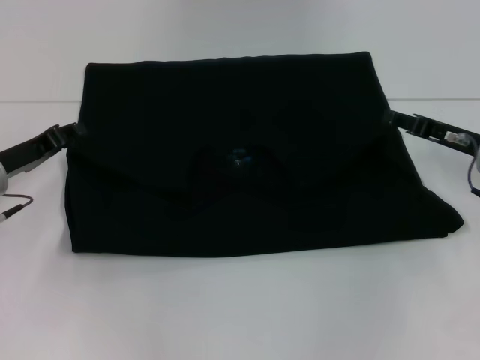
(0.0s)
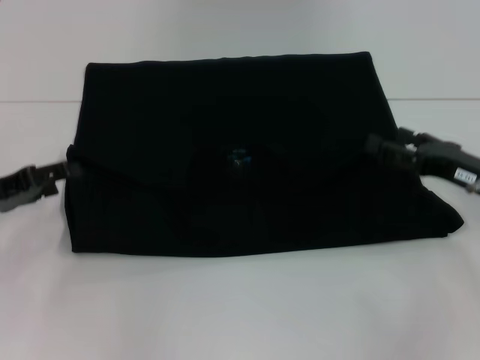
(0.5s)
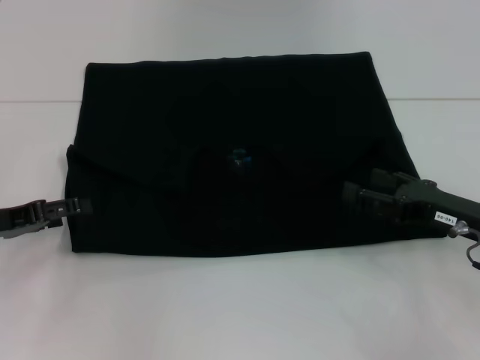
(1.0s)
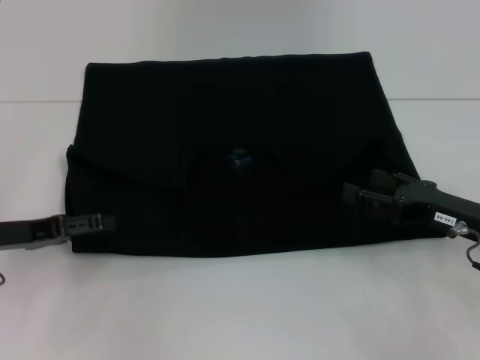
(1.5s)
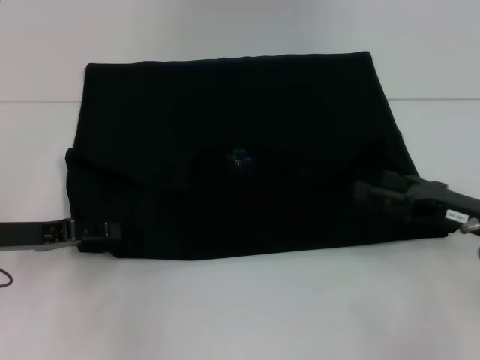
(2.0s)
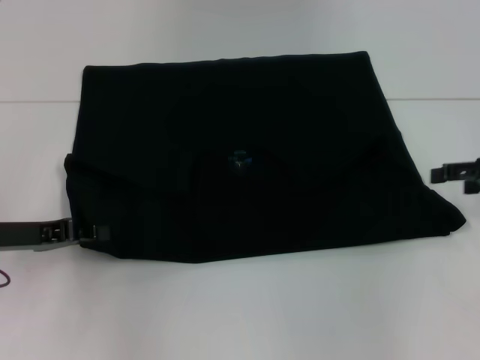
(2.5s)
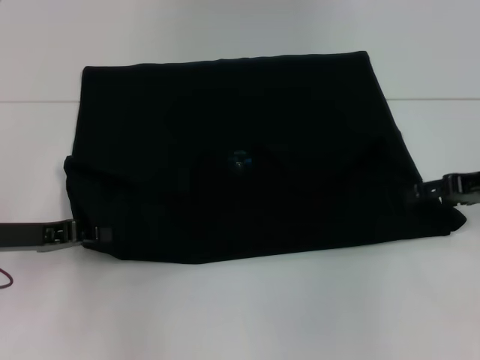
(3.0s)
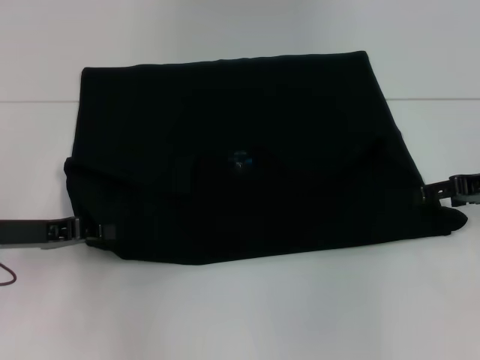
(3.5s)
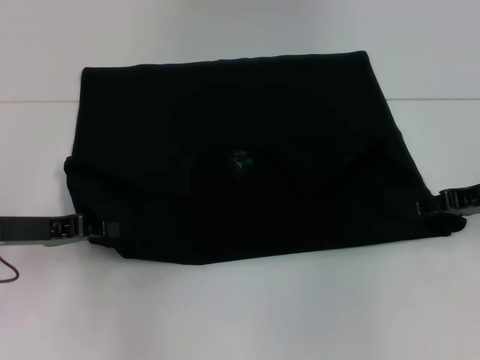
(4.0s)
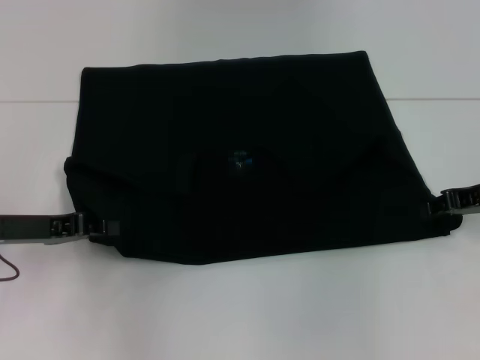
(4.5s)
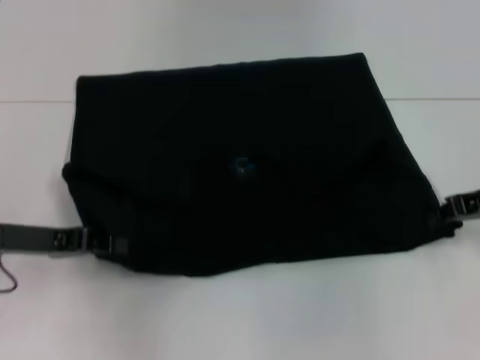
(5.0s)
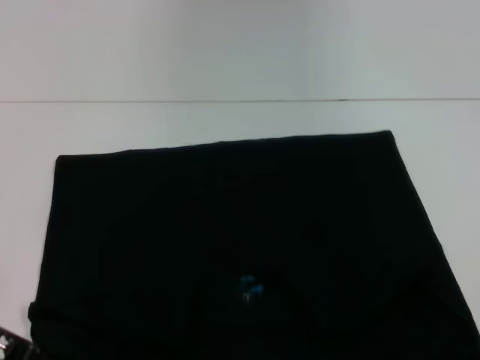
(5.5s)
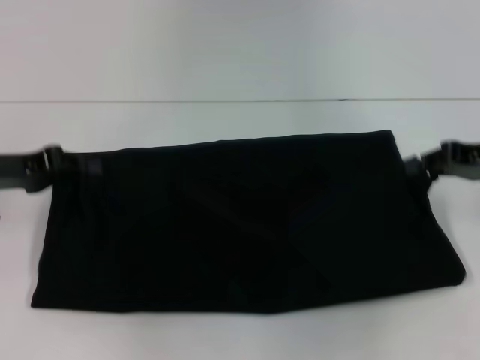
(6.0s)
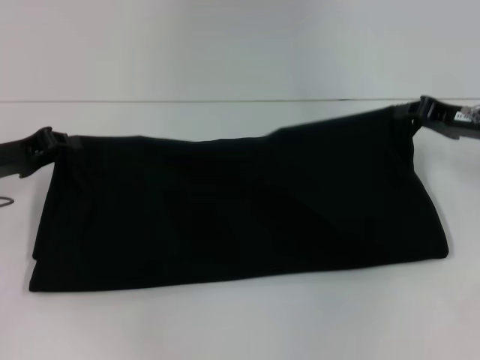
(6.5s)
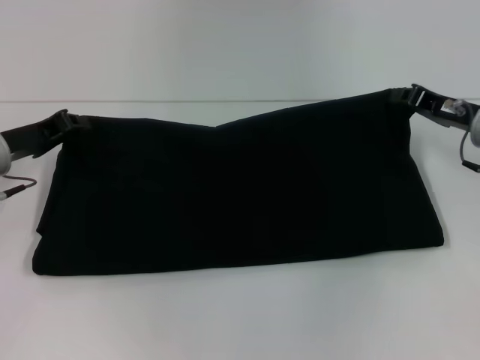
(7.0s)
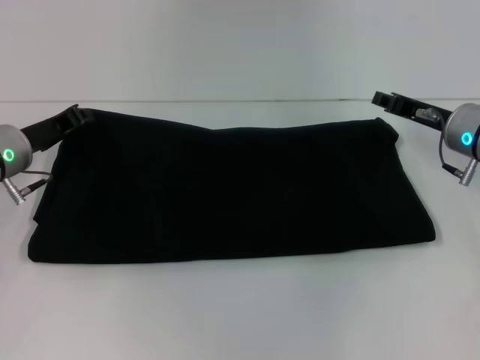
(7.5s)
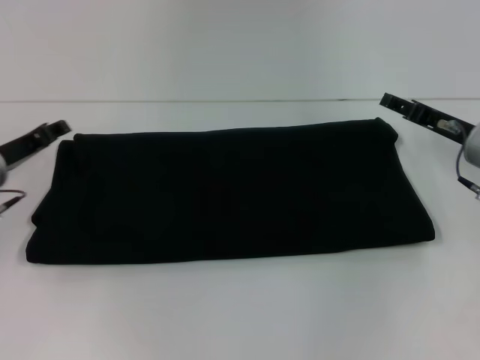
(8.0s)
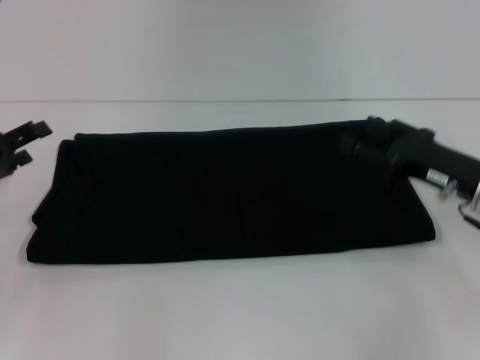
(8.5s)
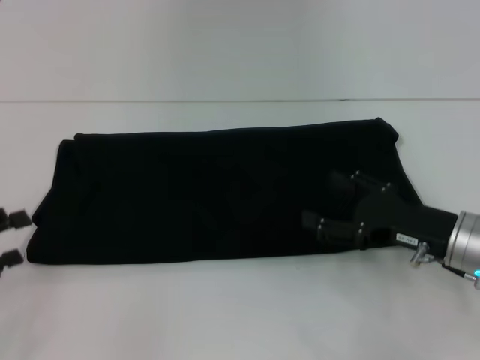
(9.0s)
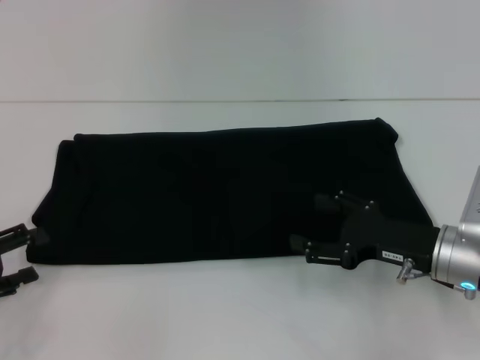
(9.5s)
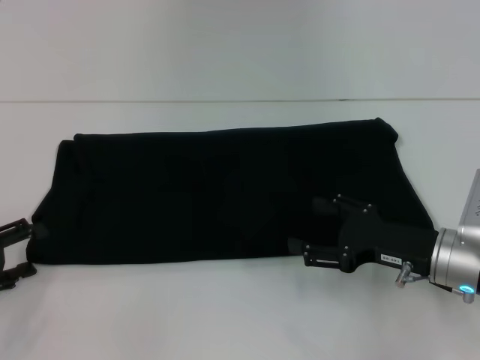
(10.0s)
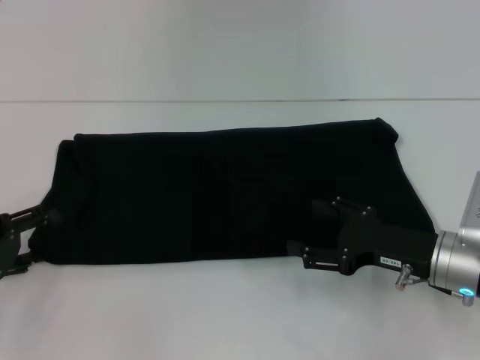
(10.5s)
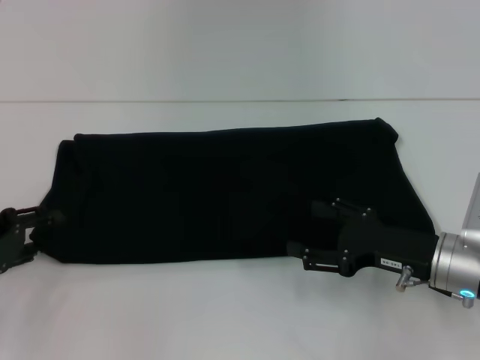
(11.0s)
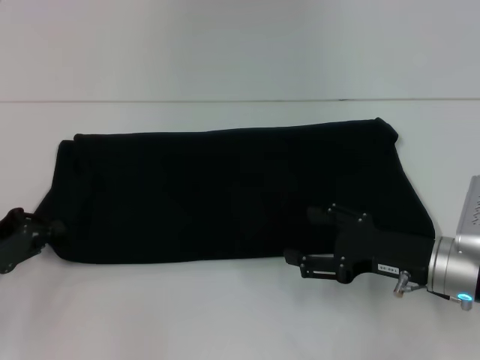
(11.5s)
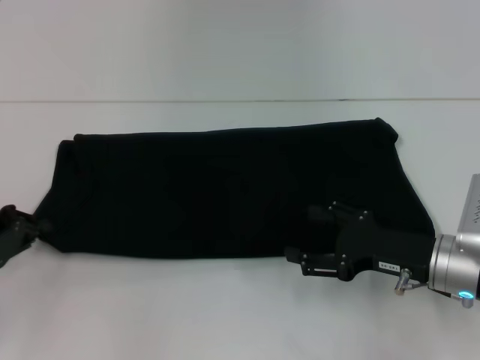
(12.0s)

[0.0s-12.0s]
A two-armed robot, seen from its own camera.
Step, 0.5s to 5.0s: Pull the clothes with your left hand.
Step, 0.5s to 5.0s: Pull the clothes with your right hand.
Step, 5.5s to 7.5s: Fold the clothes with your right hand.
0.0s to 2.0s: The left gripper moves approximately 5 cm, and opens. The right gripper shifts roughly 10 cm backward, and opens up.
2.0s to 4.0s: The left gripper closes. Meanwhile the right gripper is displaced forward by approximately 5 cm.
4.0s to 6.0s: The left gripper reaches approximately 5 cm backward, then returns. The right gripper moves approximately 10 cm backward and comes back, and closes its fingers.
6.0s to 8.0s: Both grippers move downward, about 5 cm. The left gripper opens. The right gripper opens.
8.0s to 10.0s: The right gripper shifts about 10 cm backward. Meanwhile the left gripper travels backward and to the left by about 15 cm, and opens up.
10.0s to 12.0s: The left gripper closes.

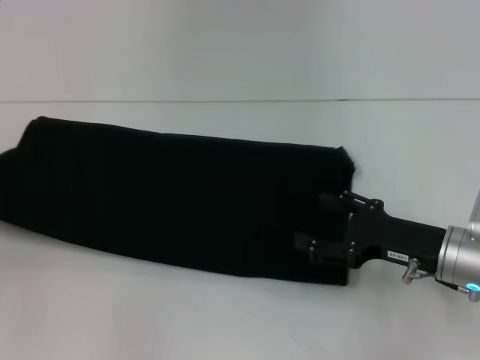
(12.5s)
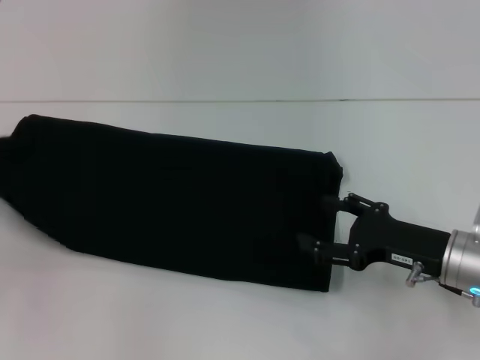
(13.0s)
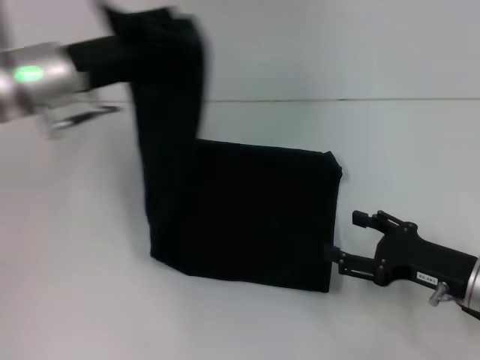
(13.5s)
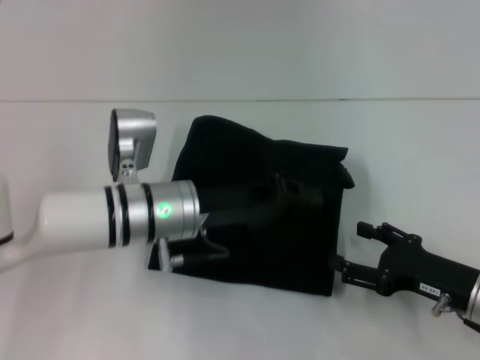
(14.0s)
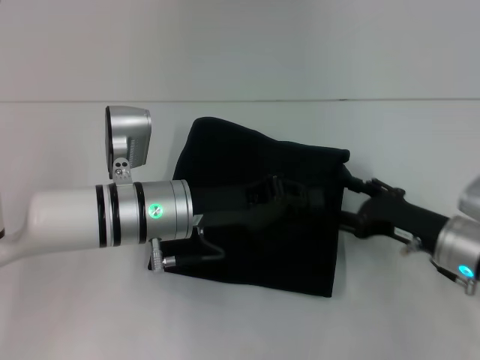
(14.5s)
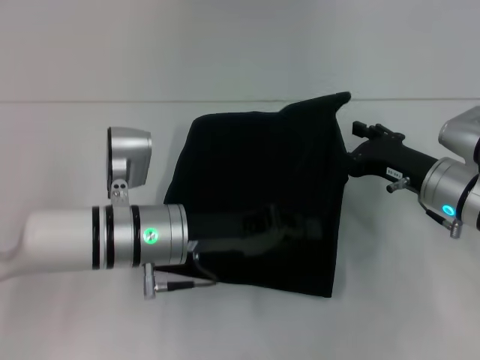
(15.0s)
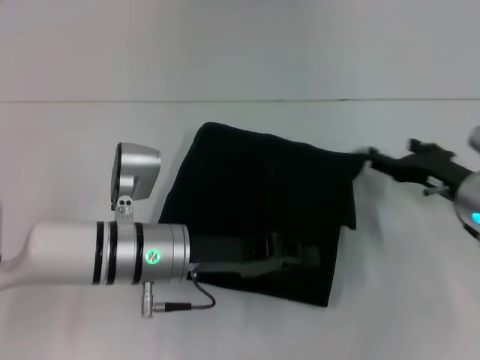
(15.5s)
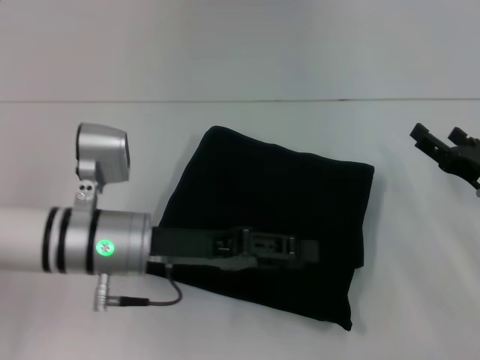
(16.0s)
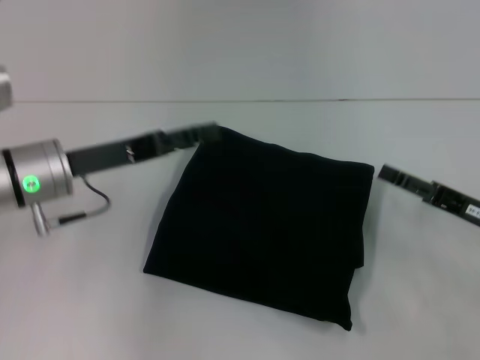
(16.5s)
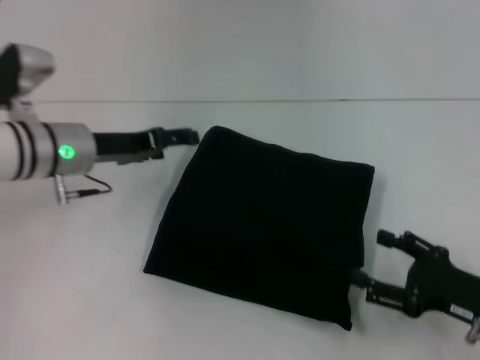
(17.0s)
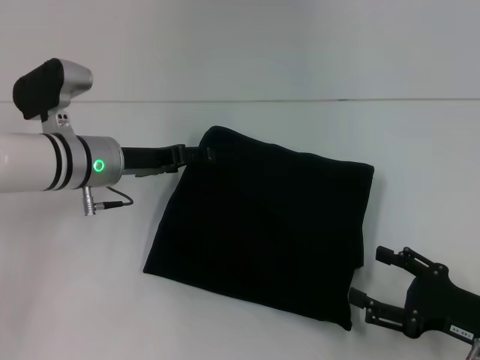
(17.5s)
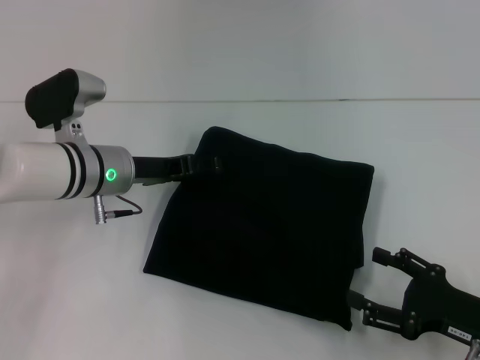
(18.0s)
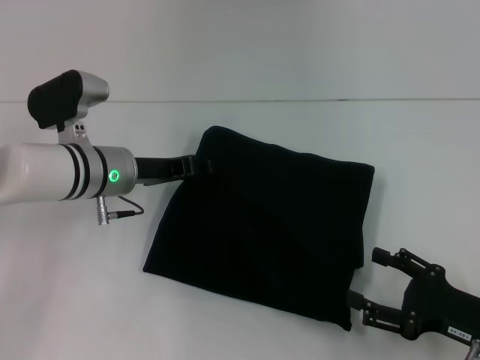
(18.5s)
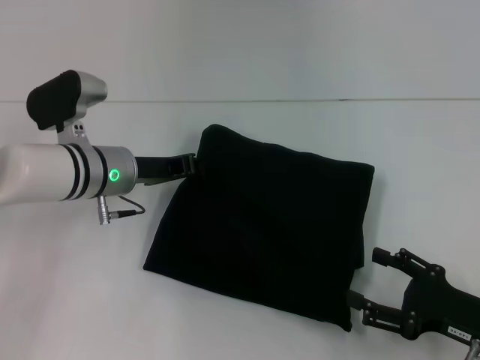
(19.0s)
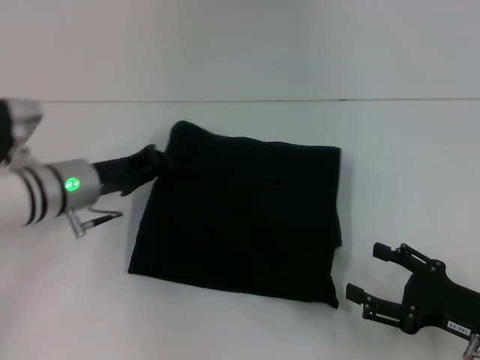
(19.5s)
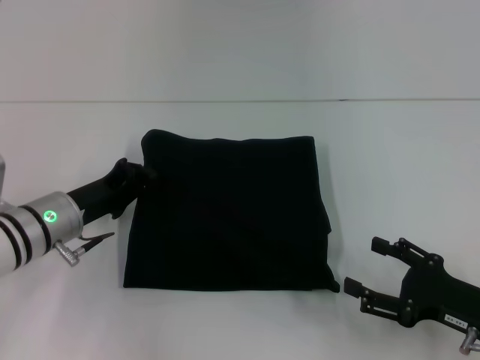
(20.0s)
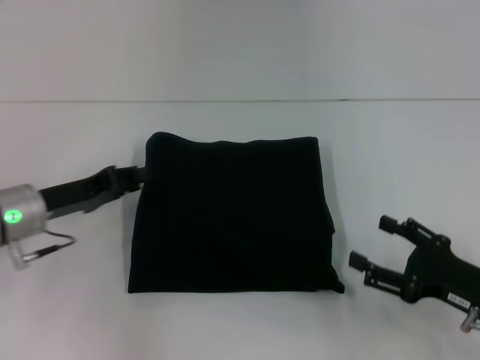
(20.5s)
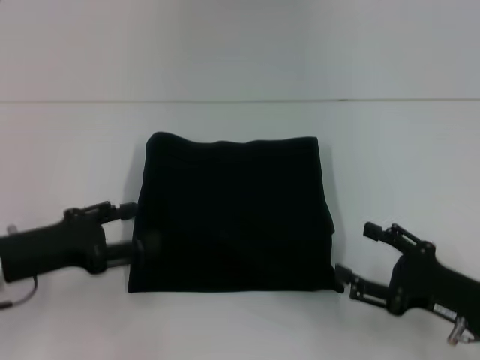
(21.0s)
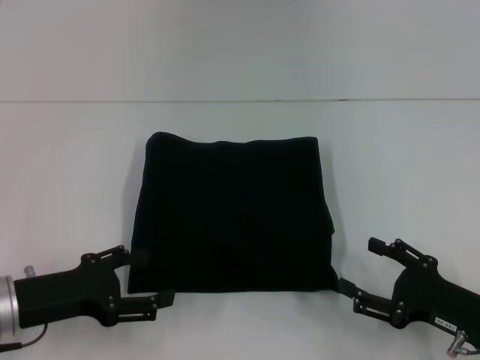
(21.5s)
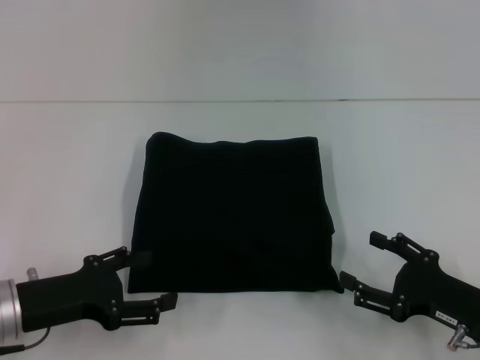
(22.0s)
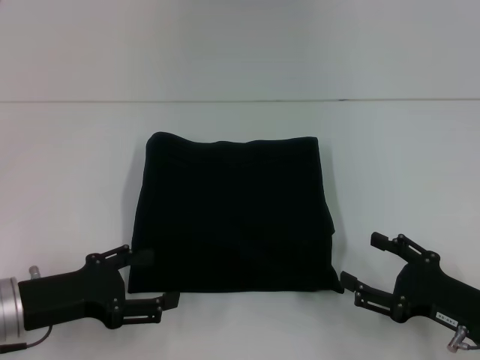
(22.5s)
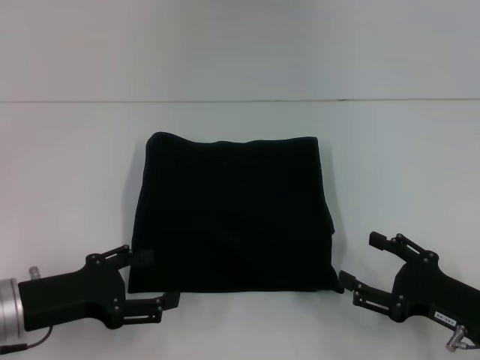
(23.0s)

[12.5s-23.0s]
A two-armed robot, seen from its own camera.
Step, 12.5s to 14.5s: Fold the clothes with your left hand.
12.5s to 14.5s: The left gripper goes some 30 cm to the right.
14.5s to 16.5s: The right gripper travels to the right by about 5 cm. The left gripper goes approximately 10 cm to the left, and opens up.
16.5s to 19.0s: The right gripper moves backward, some 10 cm. Meanwhile the left gripper is displaced forward and to the right by about 5 cm, and closes its fingers.
19.0s to 21.0s: The left gripper shifts some 15 cm backward and to the left, and opens its fingers.
21.0s to 23.0s: The grippers make only small movements.

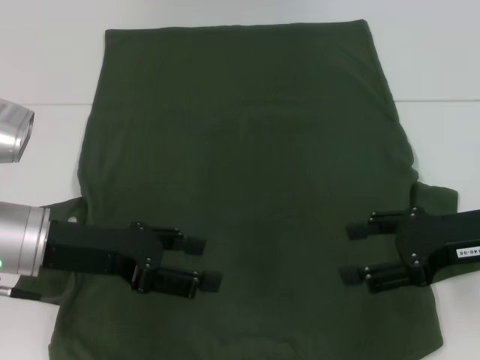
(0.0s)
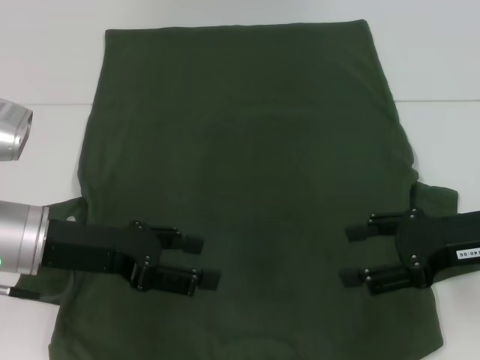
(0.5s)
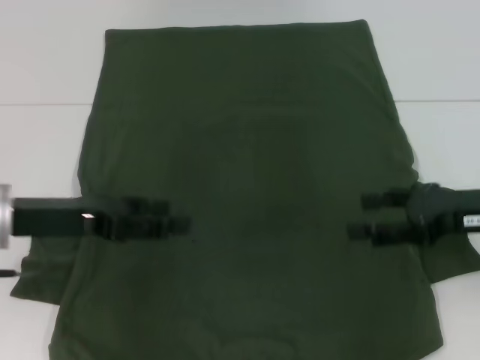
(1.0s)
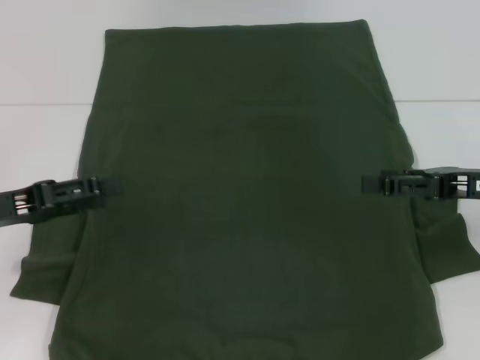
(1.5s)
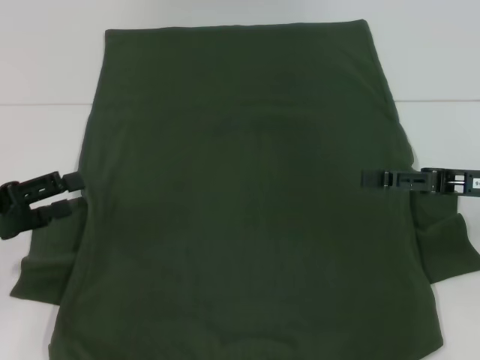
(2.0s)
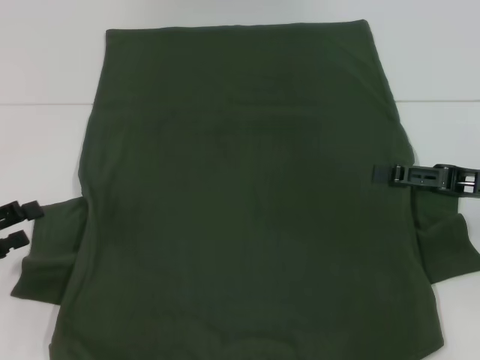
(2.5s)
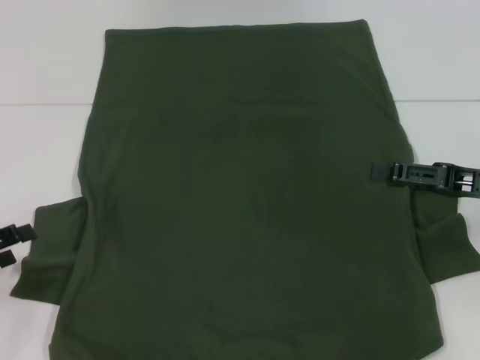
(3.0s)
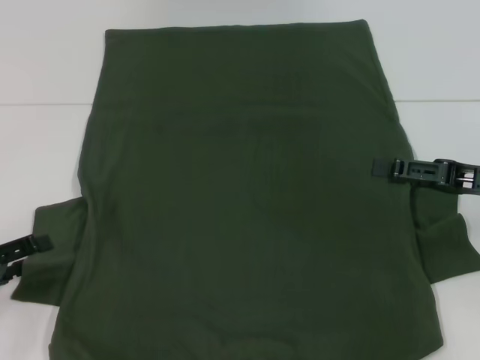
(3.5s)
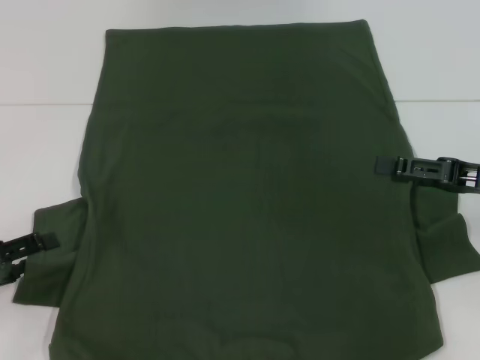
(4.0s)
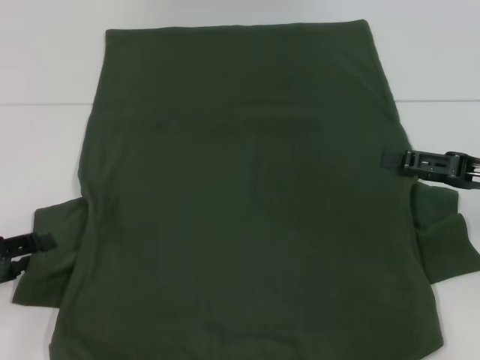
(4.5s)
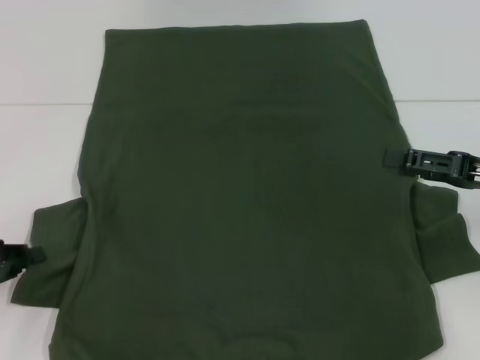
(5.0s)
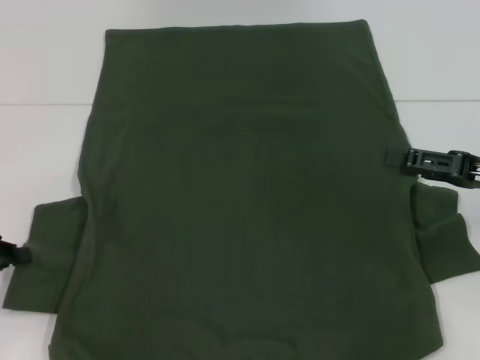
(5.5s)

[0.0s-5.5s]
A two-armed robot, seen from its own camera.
0.0s to 2.0s: The left gripper heads to the left, covering approximately 10 cm.
2.0s to 3.5s: The left gripper shifts by about 5 cm.
3.5s to 5.5s: The left gripper closes up.
